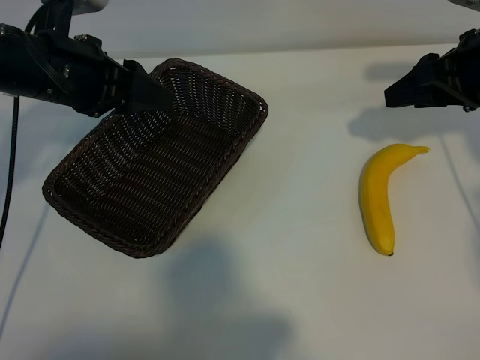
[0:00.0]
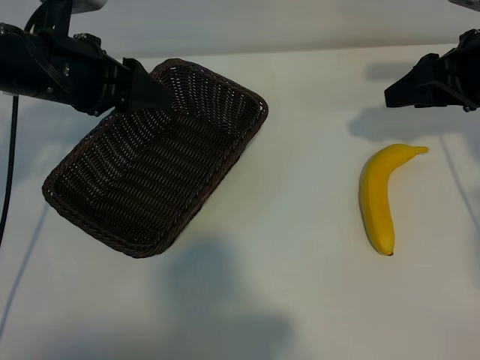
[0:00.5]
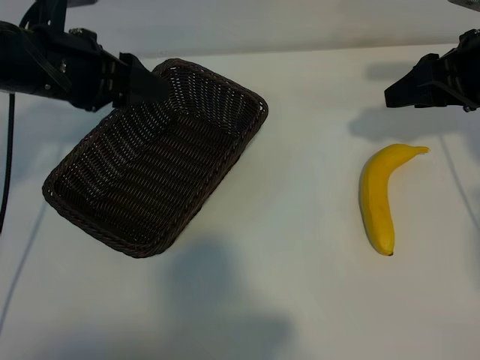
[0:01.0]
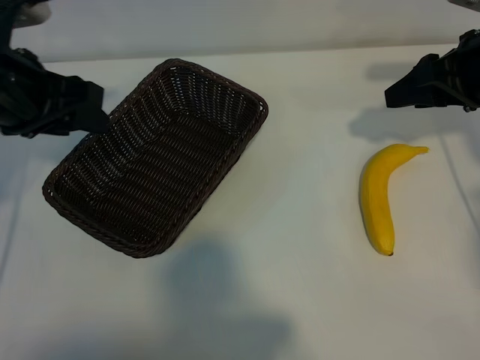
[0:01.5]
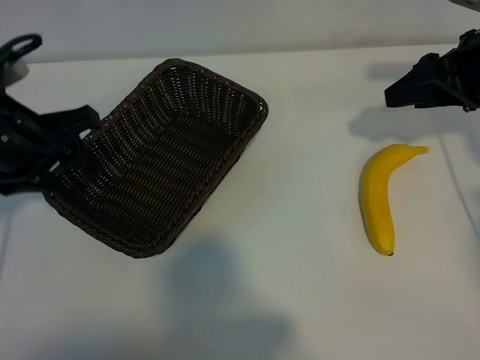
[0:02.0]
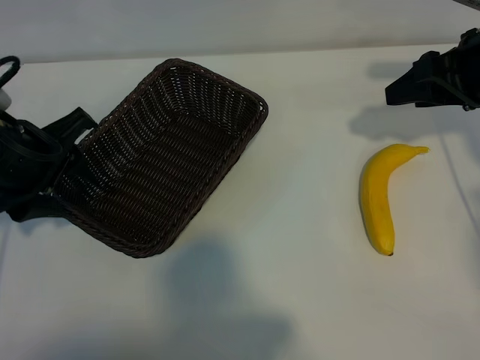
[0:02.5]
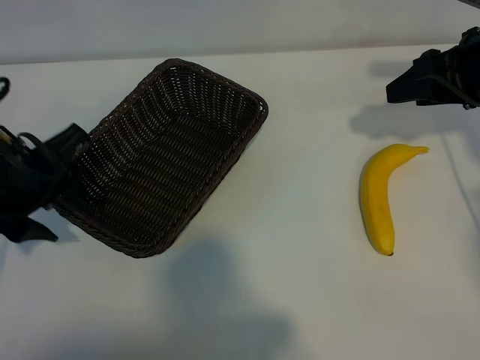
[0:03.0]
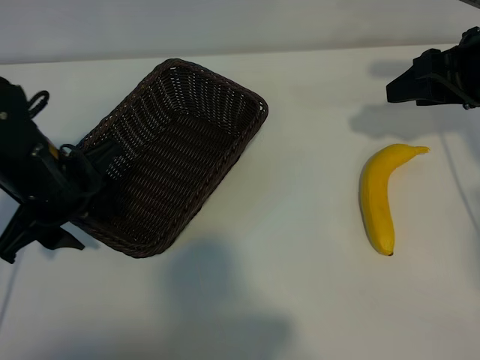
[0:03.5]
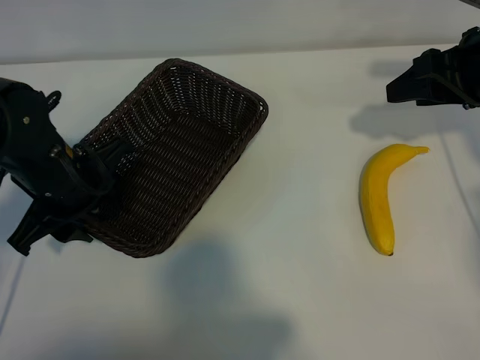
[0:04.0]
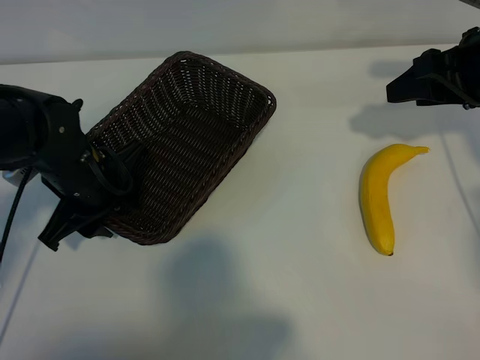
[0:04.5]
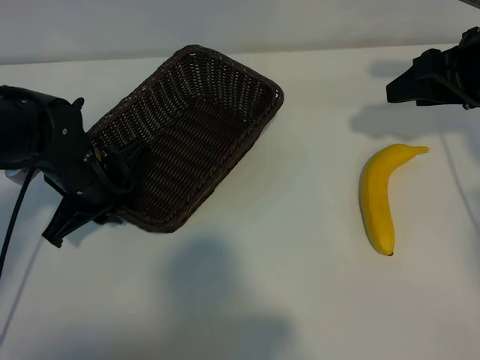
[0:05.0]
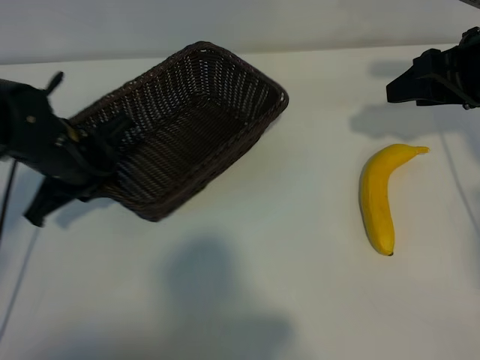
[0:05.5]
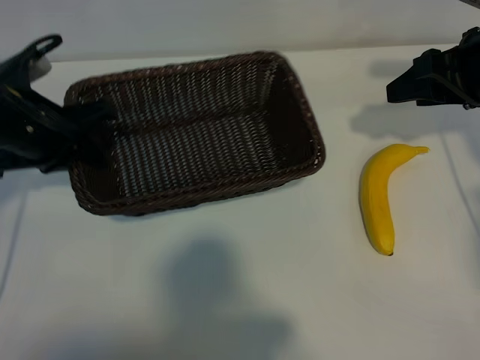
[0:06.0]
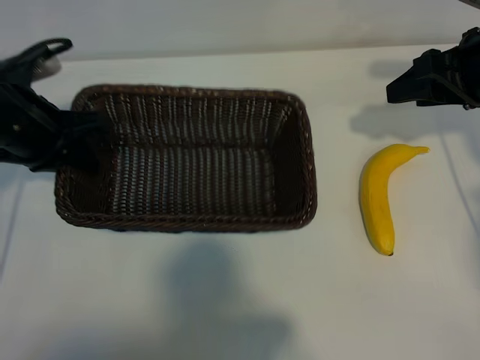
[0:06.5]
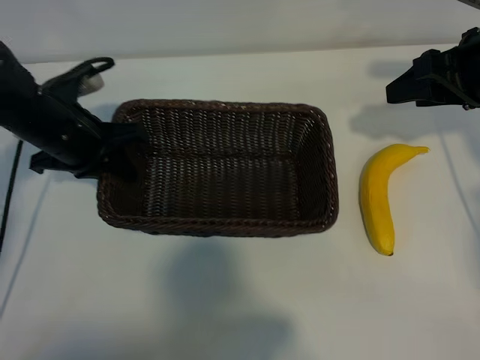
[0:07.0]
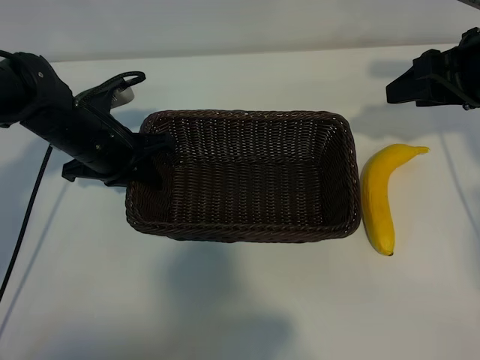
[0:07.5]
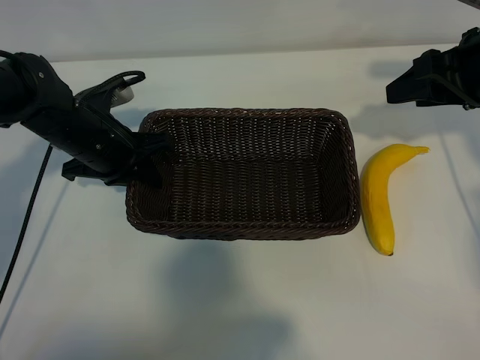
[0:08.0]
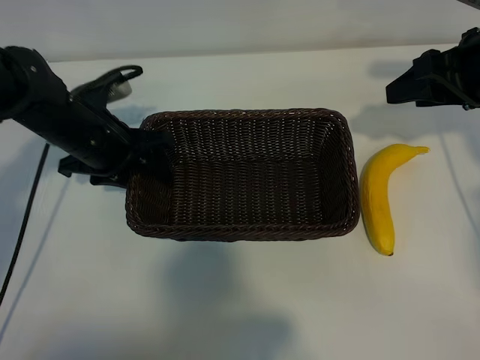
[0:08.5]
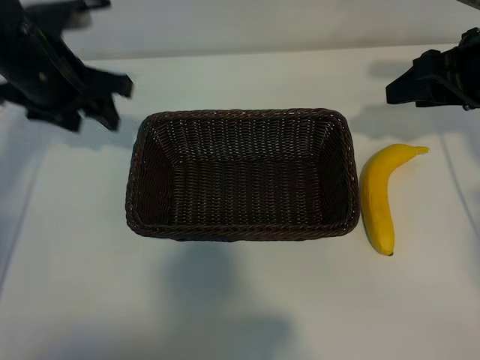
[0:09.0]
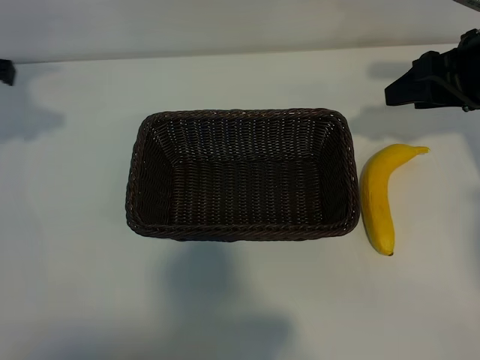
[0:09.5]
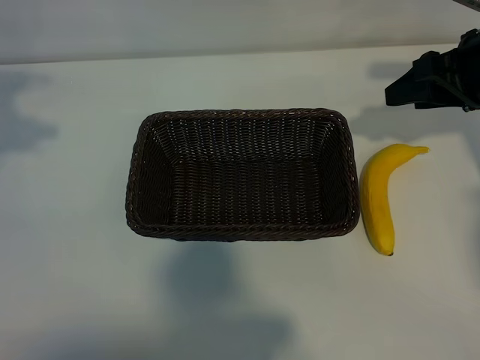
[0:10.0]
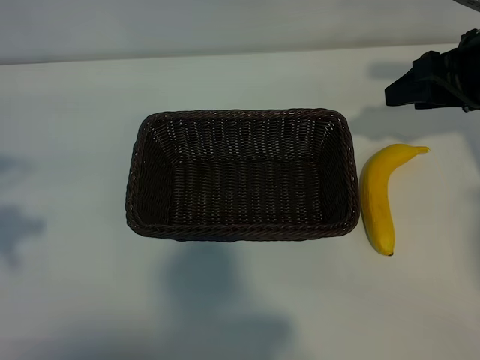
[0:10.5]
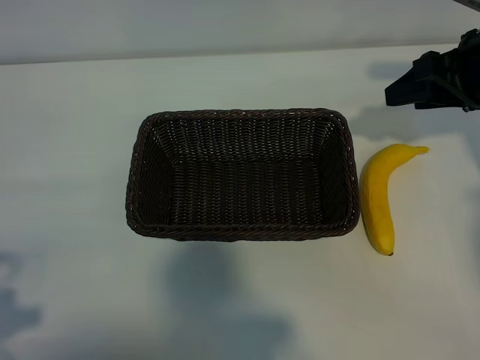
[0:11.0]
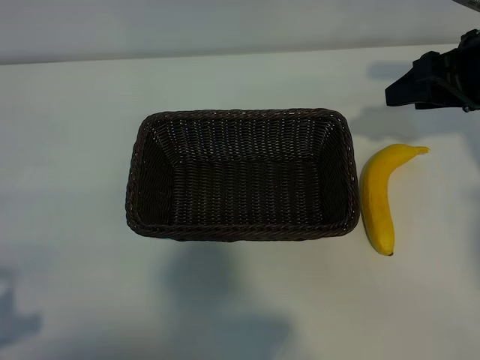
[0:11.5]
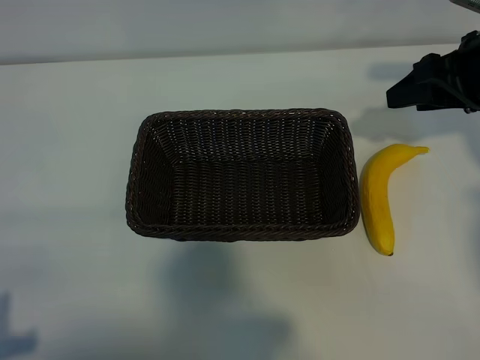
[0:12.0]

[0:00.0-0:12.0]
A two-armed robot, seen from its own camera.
Task of the whole recording: pick up the banana and put it into the basket.
Step, 0:00.0 to 0:04.0: Grasp the basket with the left gripper.
Step, 0:04.5 to 0:08.5: Place the basket in the center of the table with the left gripper.

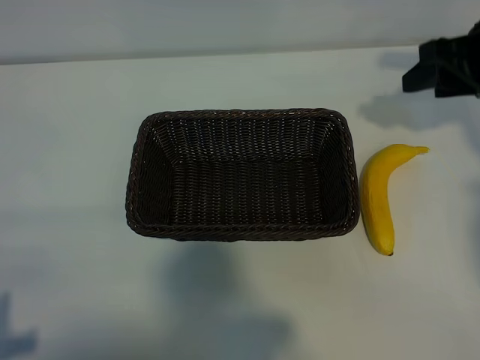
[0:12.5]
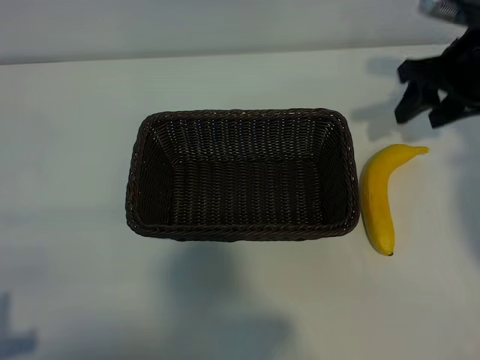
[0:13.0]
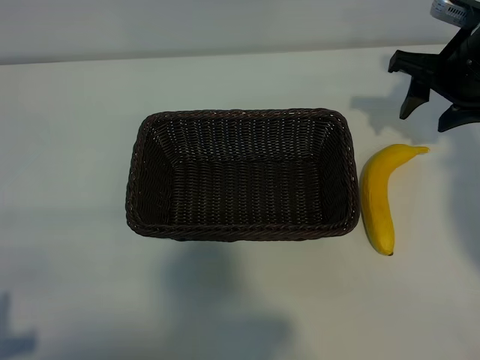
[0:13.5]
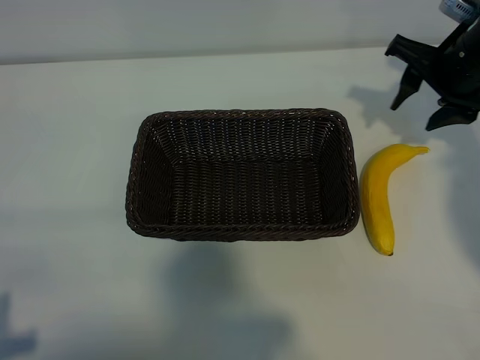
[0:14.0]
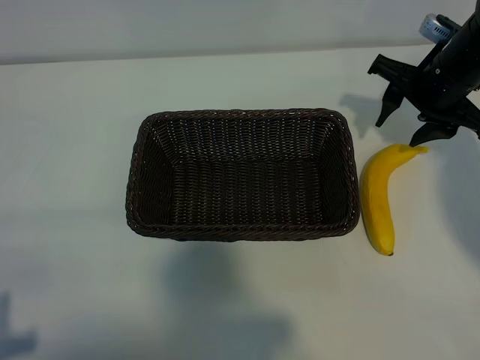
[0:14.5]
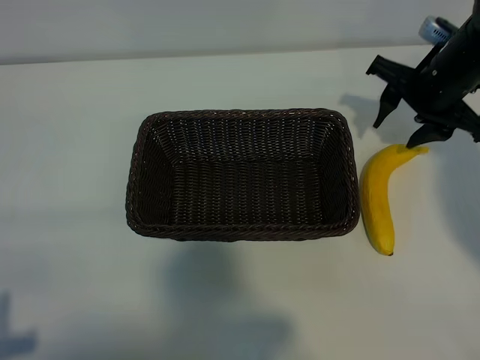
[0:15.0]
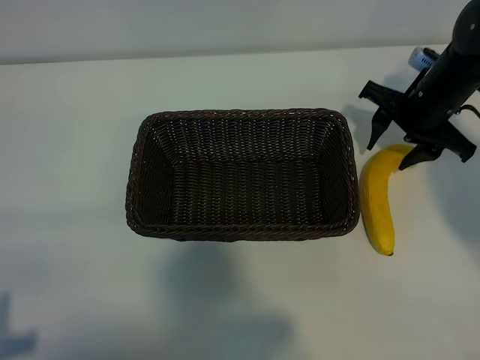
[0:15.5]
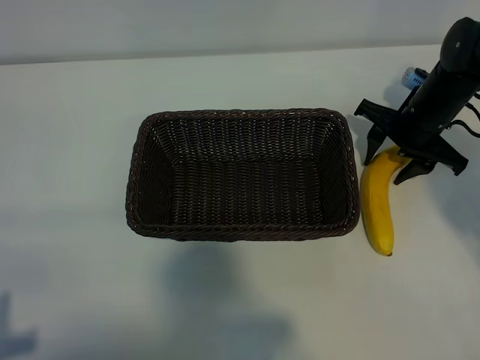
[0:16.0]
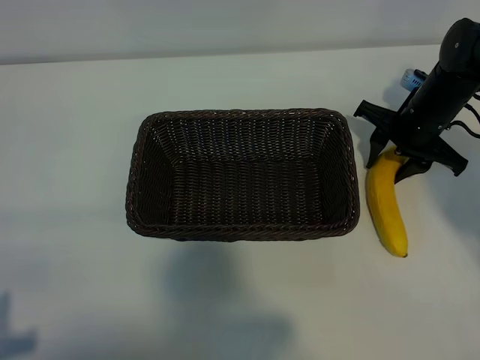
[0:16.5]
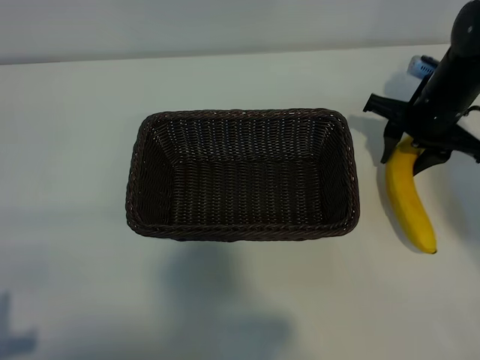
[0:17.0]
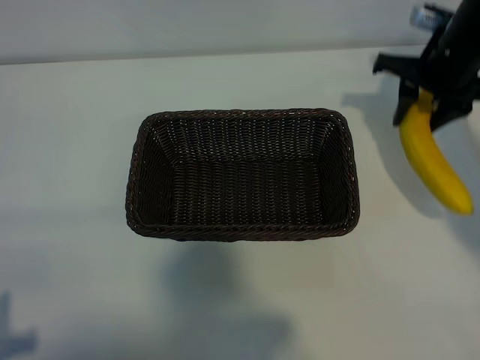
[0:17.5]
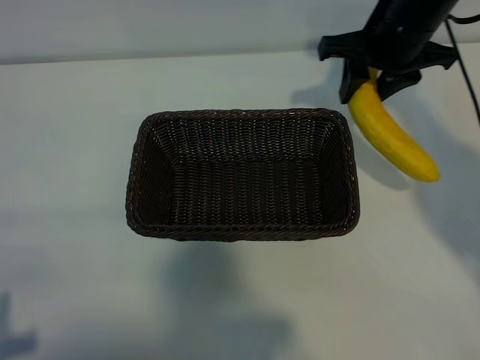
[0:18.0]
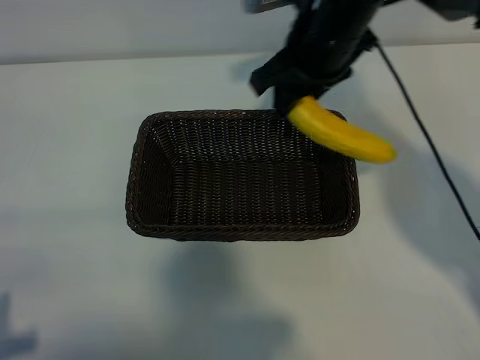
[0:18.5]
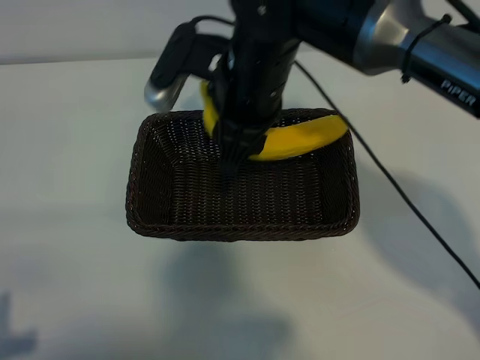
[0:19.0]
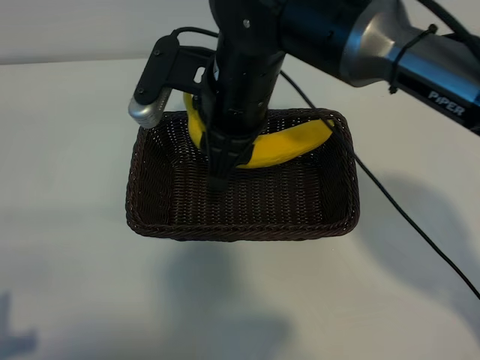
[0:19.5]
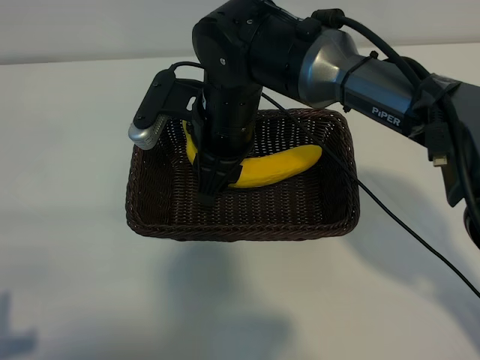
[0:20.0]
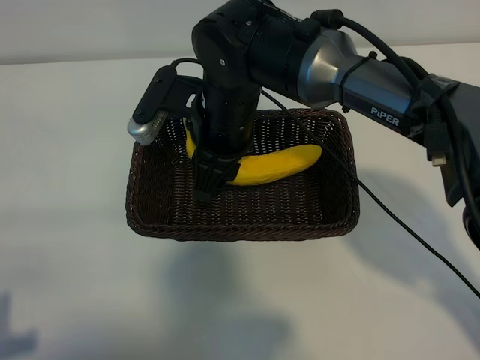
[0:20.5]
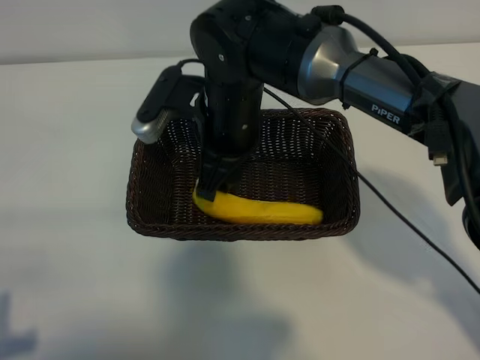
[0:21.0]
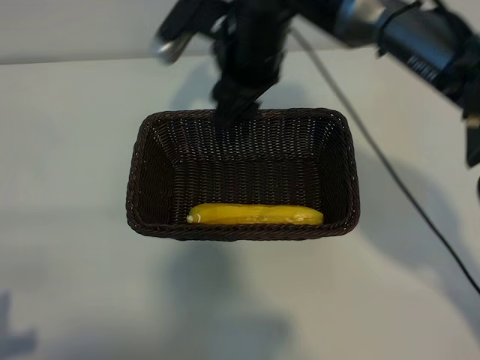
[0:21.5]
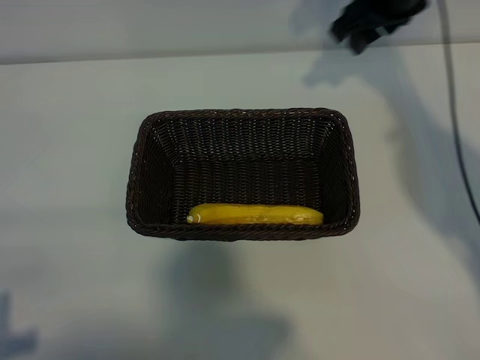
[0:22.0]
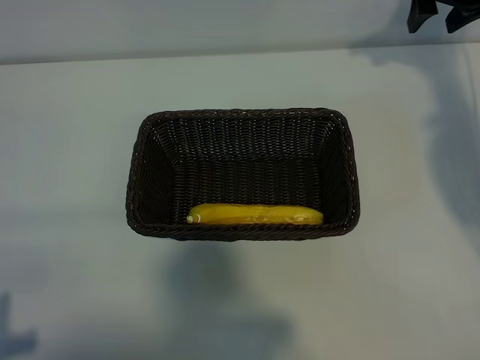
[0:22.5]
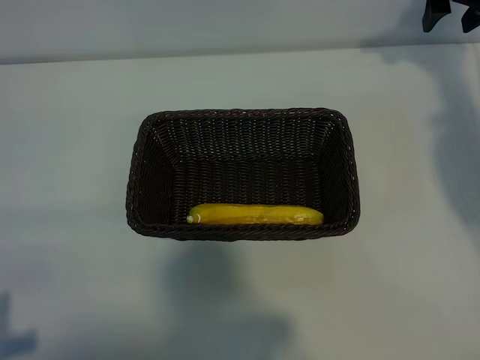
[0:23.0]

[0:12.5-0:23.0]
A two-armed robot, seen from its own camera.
Task of the whole recording: pick up the banana and put it into the basket.
Step, 0:12.5 to 0:16.0: Grasp the banana with right gripper.
Step, 0:16.5 to 0:21.0: Place the banana in the basket with right gripper.
